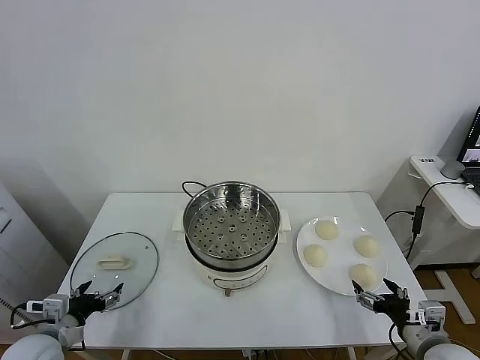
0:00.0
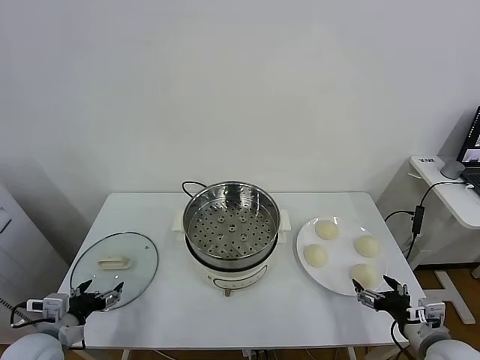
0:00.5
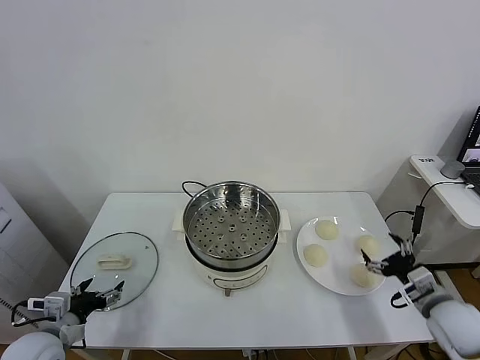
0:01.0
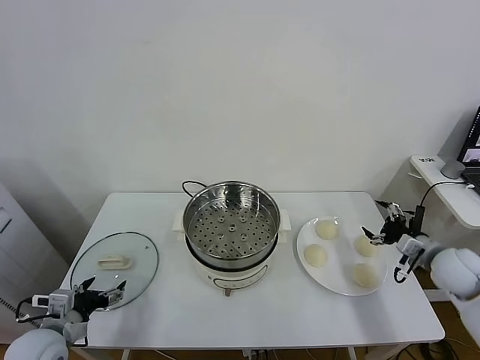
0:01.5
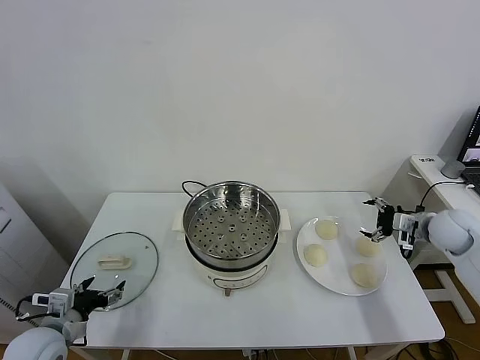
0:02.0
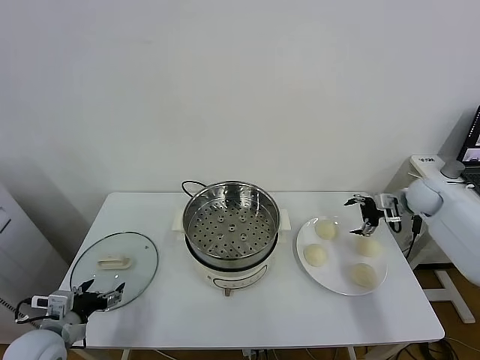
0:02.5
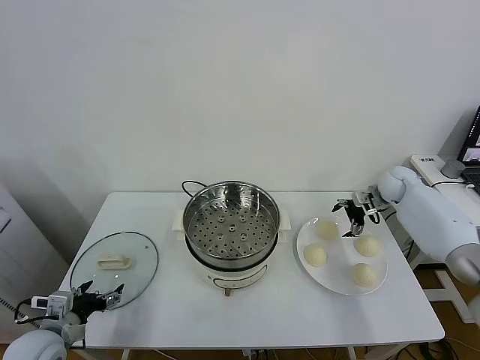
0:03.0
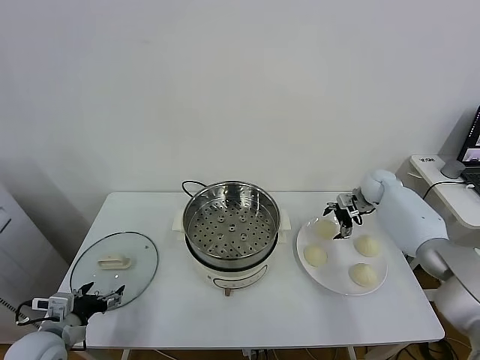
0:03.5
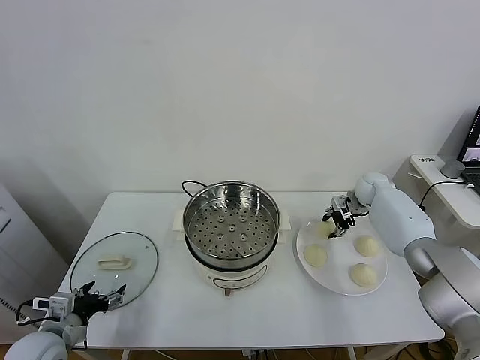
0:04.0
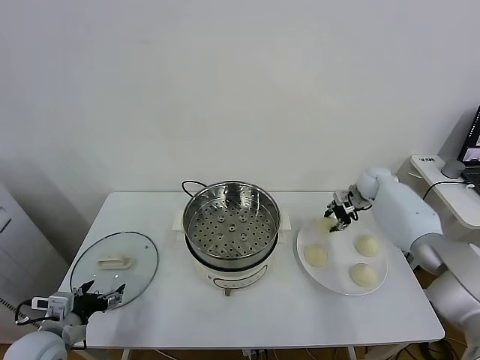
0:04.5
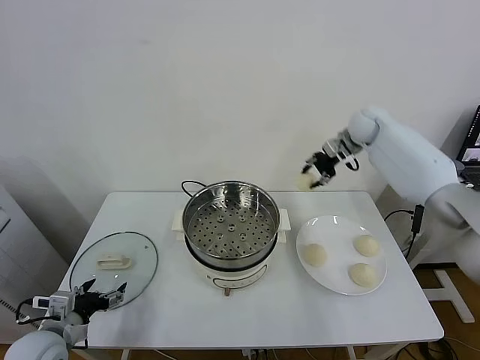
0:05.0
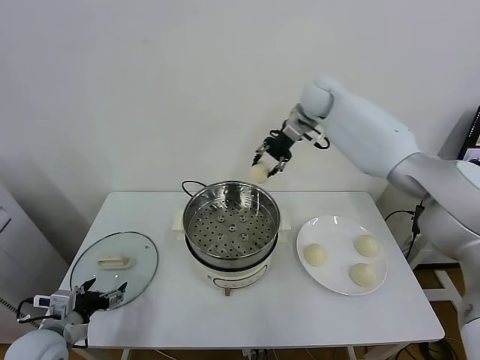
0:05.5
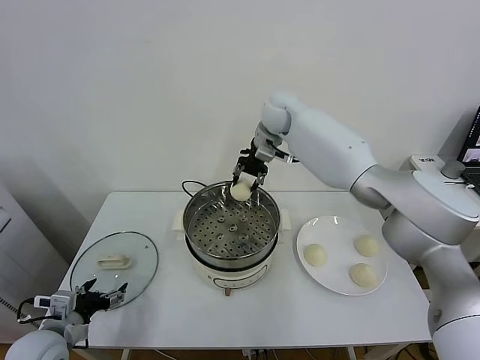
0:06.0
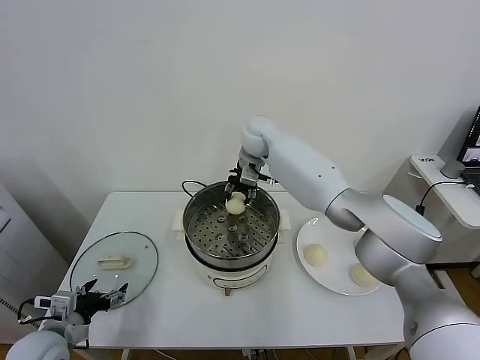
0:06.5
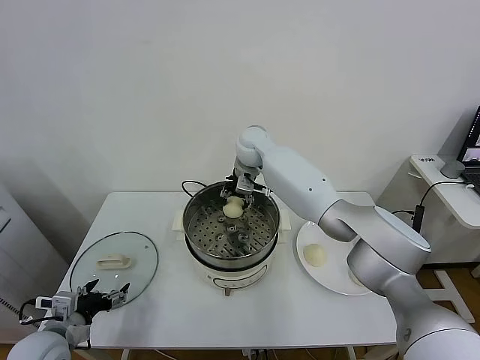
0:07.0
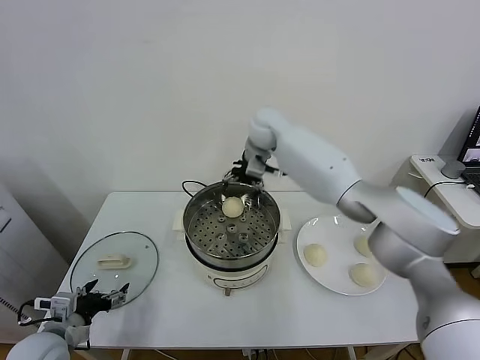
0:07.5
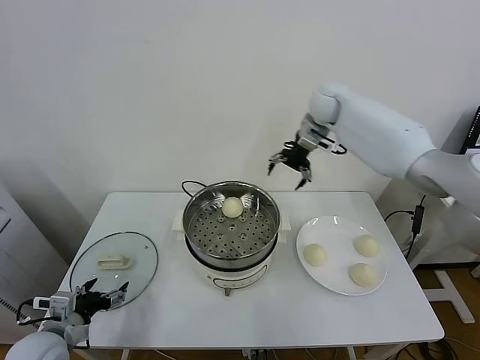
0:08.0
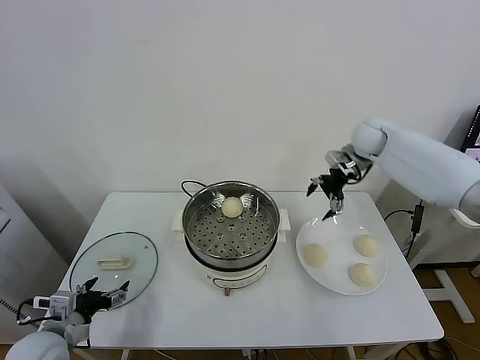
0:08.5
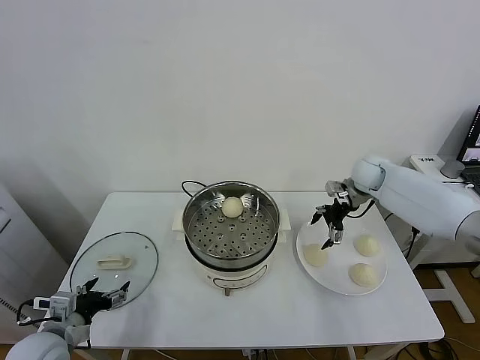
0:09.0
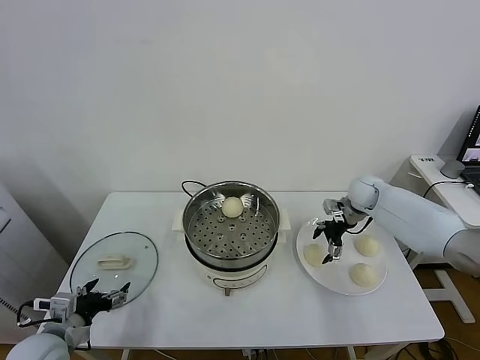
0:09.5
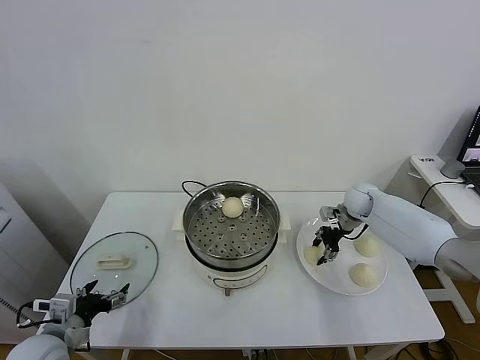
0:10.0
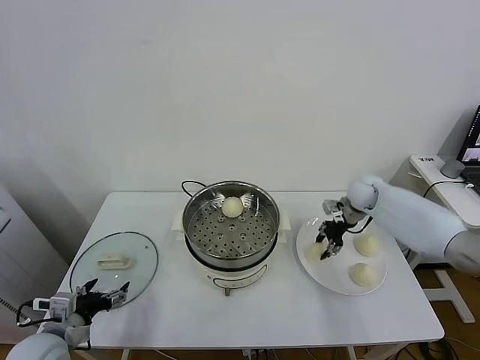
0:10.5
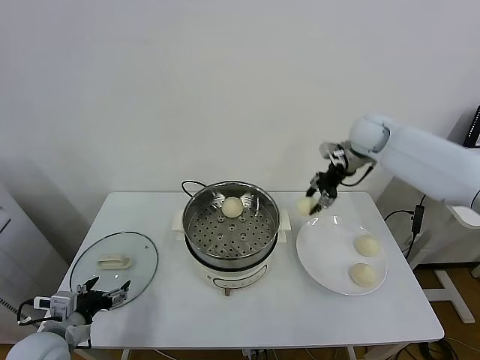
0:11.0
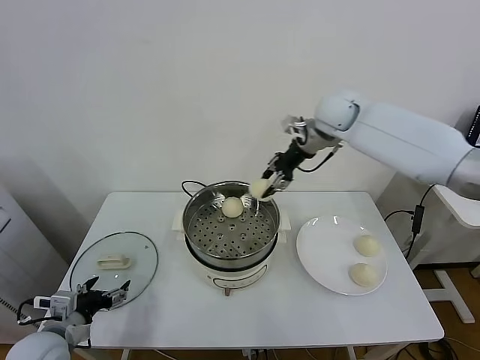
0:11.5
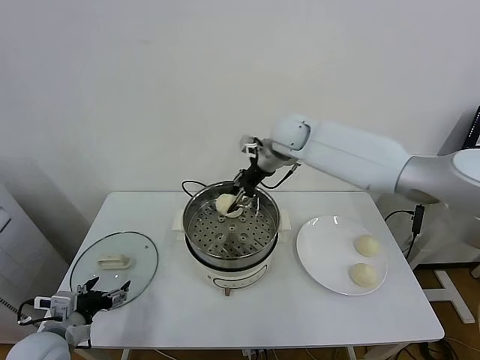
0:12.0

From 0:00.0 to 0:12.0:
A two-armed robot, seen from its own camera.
Task of the whole recording: take steamed baozi put them in steamer.
Step, from 0:00.0 to 0:03.5: Grasp the baozi in the plate with right gripper.
Step, from 0:04.0 to 0:07.0: Place the baozi on the steamer with right gripper.
Step, from 0:07.5 to 0:10.0: Grasp the baozi in the plate with right gripper.
From 0:02.0 to 0:04.0: The right gripper shifts approximately 20 cm forward and to the left, and closes its fingers.
From 0:04.0 to 0:06.0: The right gripper moves to the left and upward, some 40 cm.
From 0:06.0 to 0:08.0: The right gripper moves to the right, roughly 15 cm, and opens.
From 0:08.0 to 0:10.0: The right gripper moves downward and to the right, about 25 cm, and closes its fingers.
From 0:10.0 to 0:12.0: The right gripper moves to the left and upward, about 30 cm.

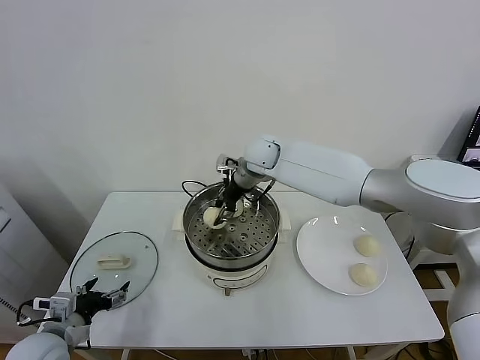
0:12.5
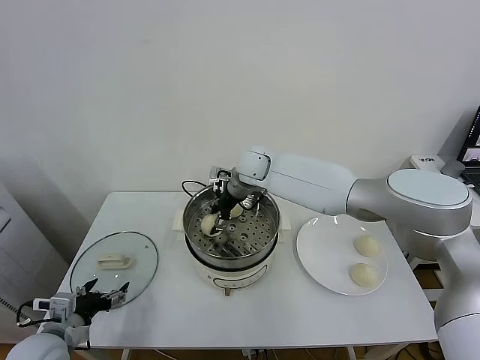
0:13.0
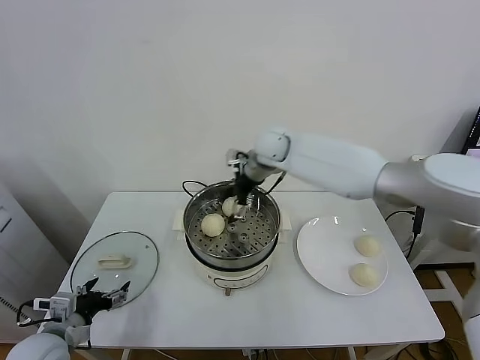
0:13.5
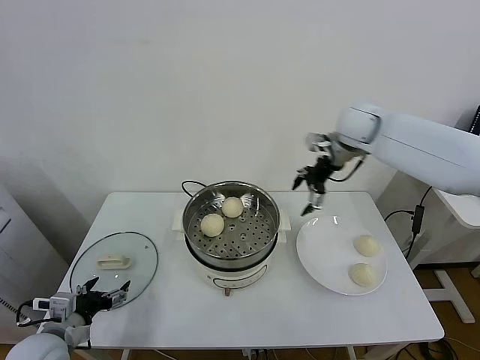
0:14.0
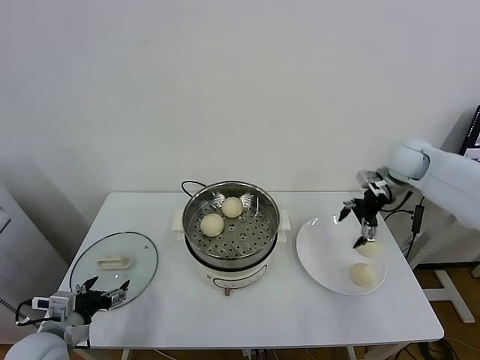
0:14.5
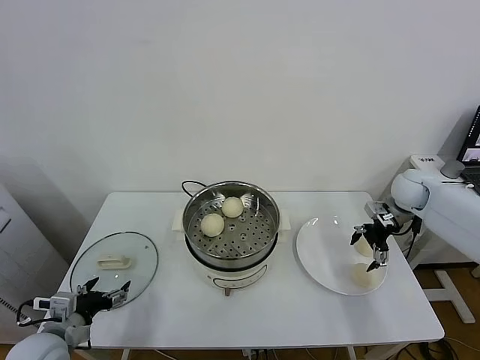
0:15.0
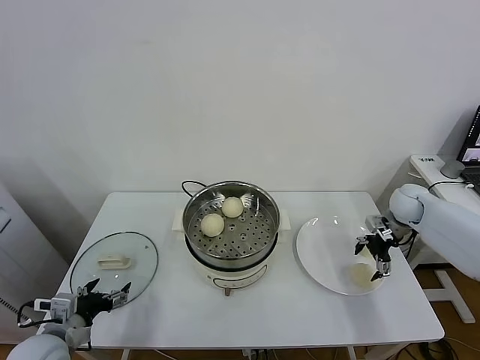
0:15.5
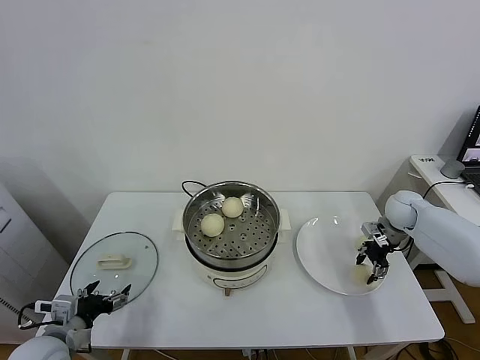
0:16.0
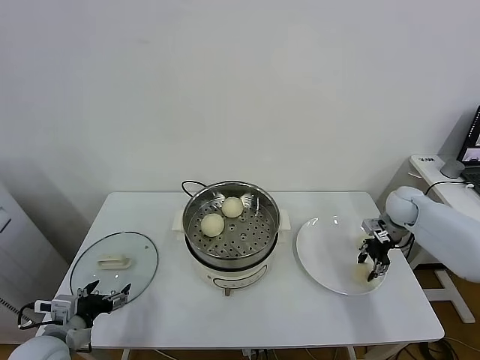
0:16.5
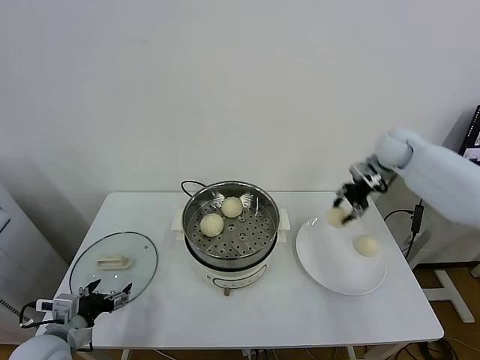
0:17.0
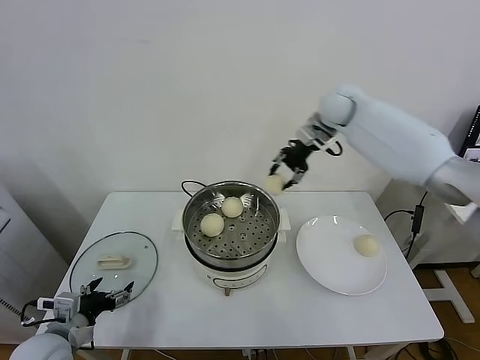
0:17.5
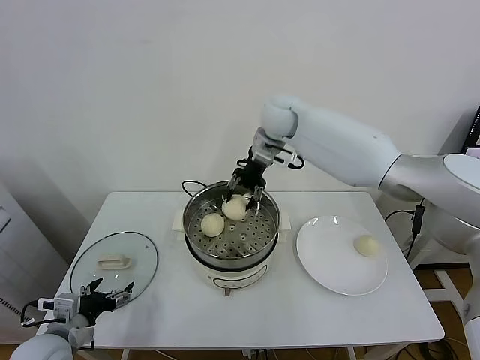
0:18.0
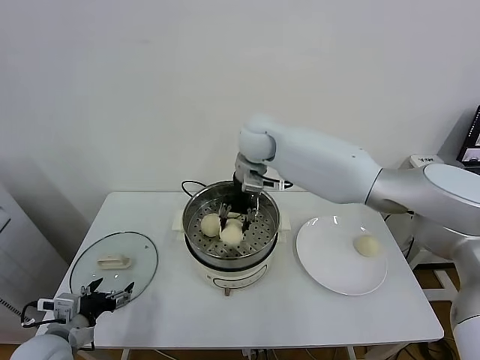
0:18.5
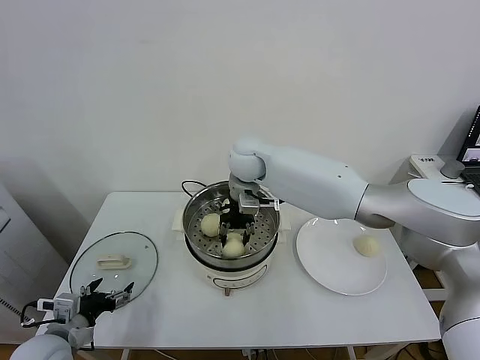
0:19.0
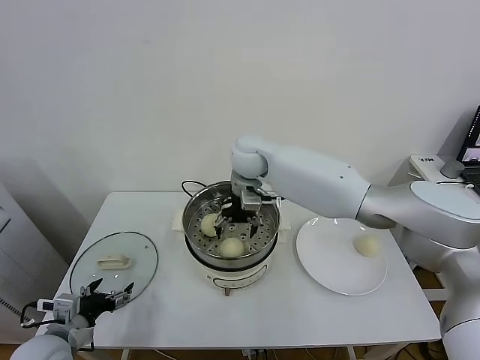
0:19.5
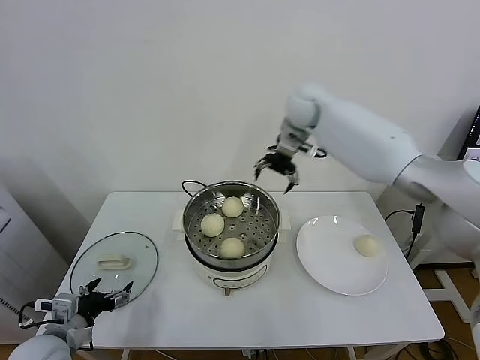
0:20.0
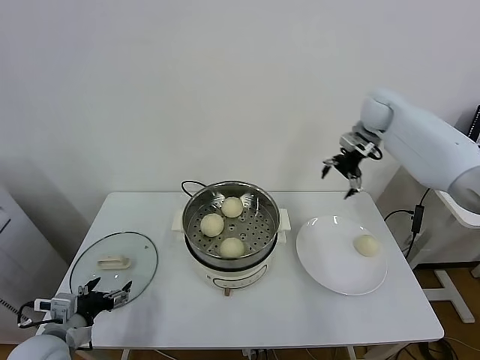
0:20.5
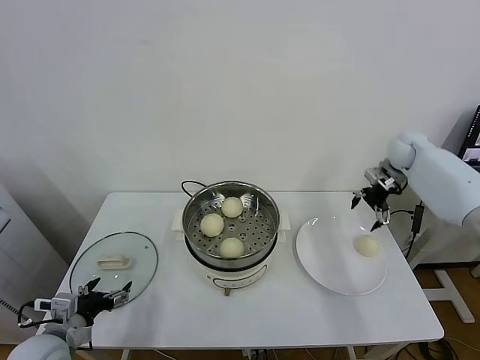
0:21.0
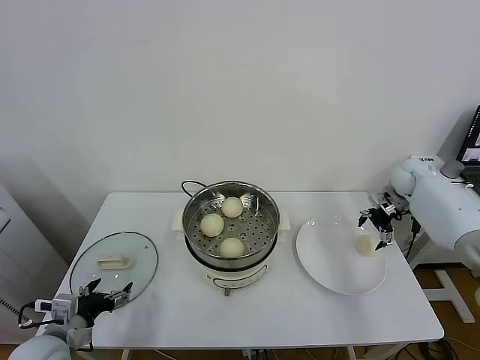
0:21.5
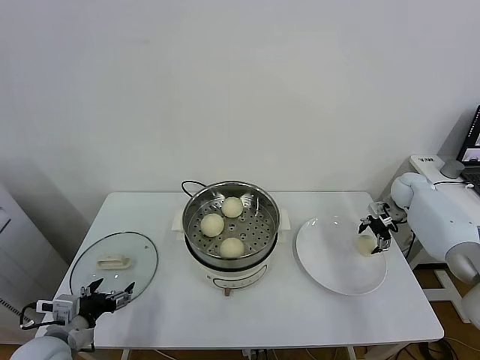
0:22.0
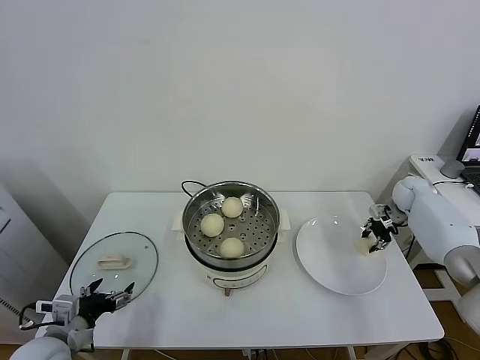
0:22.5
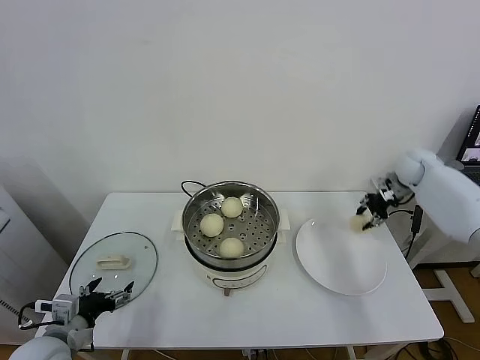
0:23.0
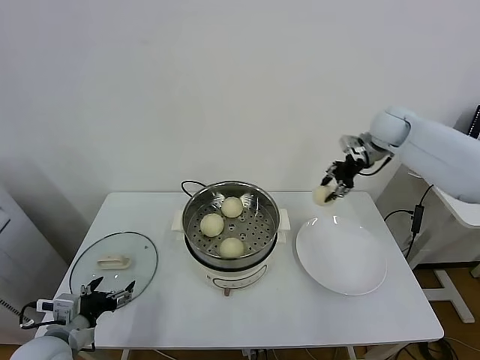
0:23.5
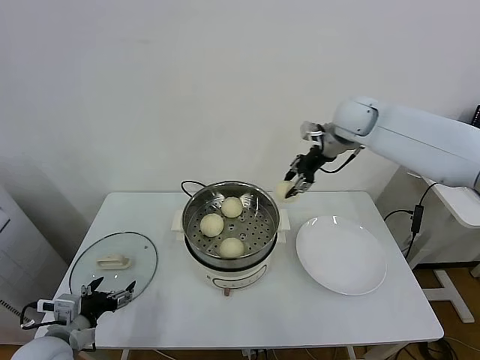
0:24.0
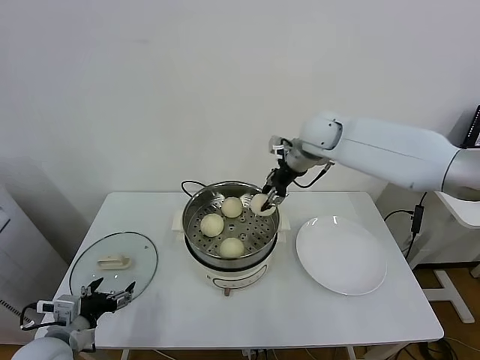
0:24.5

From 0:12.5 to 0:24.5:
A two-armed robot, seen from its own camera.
Task of the whole recording: take steamed baozi put them in steamer.
Step, from 0:13.5 to 0:16.0: Grasp the baozi in the plate with right gripper.
Step, from 0:16.5 to 0:19.5: Place the baozi on the steamer with right gripper.
Step, from 0:20.0 to 0:22.0: Grasp the baozi in the plate with right gripper.
From 0:12.5 to 0:14.5: The right gripper shifts about 35 cm to the right, and opens.
From 0:14.5 to 0:16.5: The right gripper goes some 10 cm downward, and closes up.
From 0:16.5 to 0:18.5: The right gripper shifts approximately 40 cm to the left and upward.
From 0:18.5 to 0:20.5: The right gripper travels to the right by roughly 30 cm, and opens.
From 0:20.5 to 0:22.5: The right gripper shifts some 25 cm downward and to the right, and closes up.
From 0:22.5 to 0:24.5: The right gripper moves to the left and upward, about 35 cm.

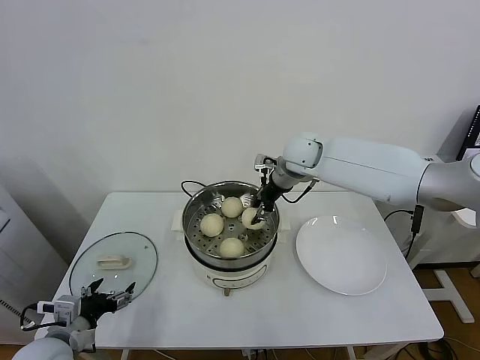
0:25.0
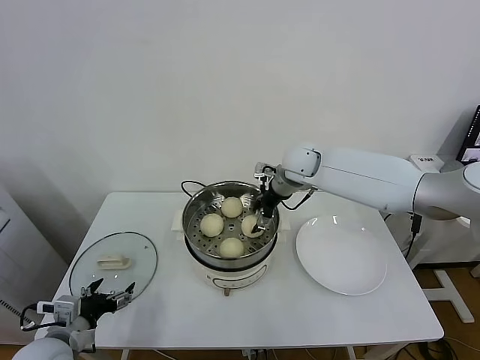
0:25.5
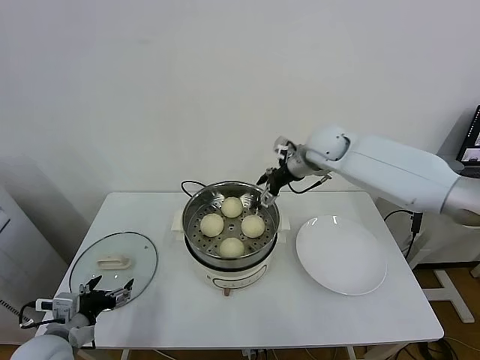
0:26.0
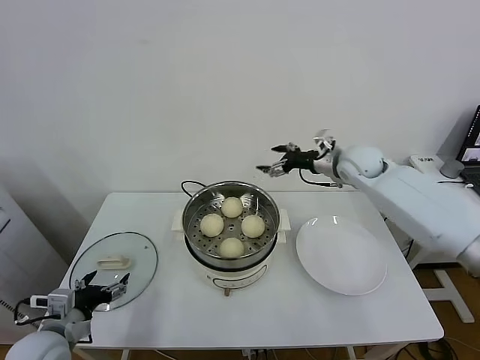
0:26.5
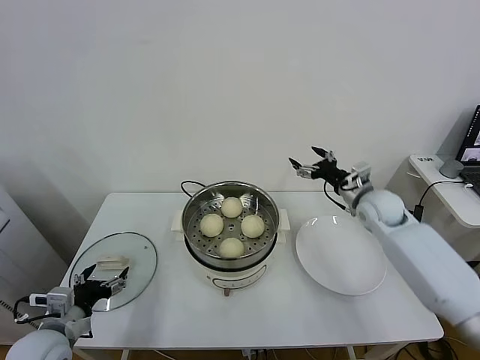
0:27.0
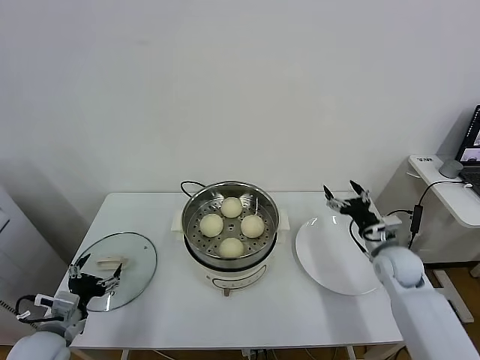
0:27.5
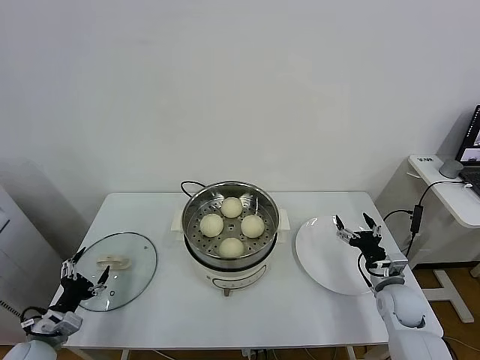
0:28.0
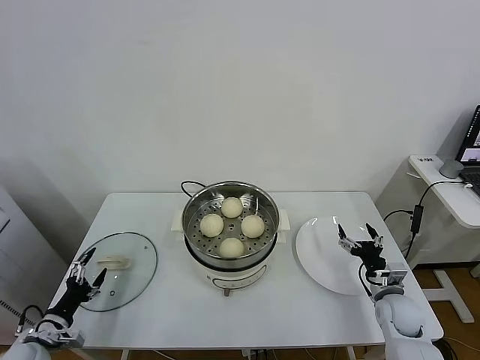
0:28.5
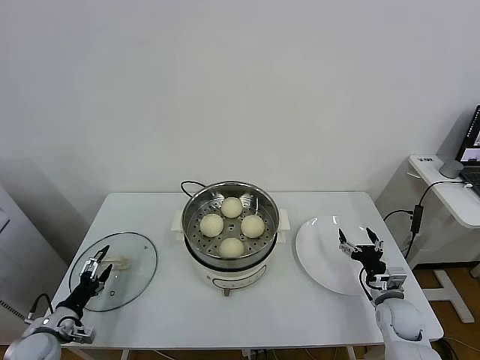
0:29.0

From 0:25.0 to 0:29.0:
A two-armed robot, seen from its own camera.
Task of the whole recording: take steamed baozi put them in steamer.
From 0:25.0 to 0:27.0: The right gripper shifts some 25 cm to the right, downward and backward, and opens its fingers.
From 0:27.0 to 0:29.0: The right gripper moves downward and backward, some 25 cm. Meanwhile the left gripper moves downward and to the left, about 15 cm.
